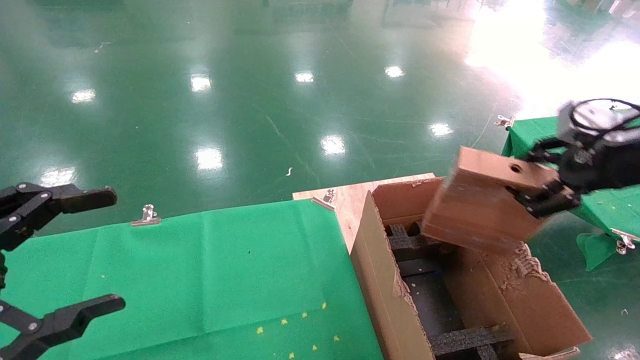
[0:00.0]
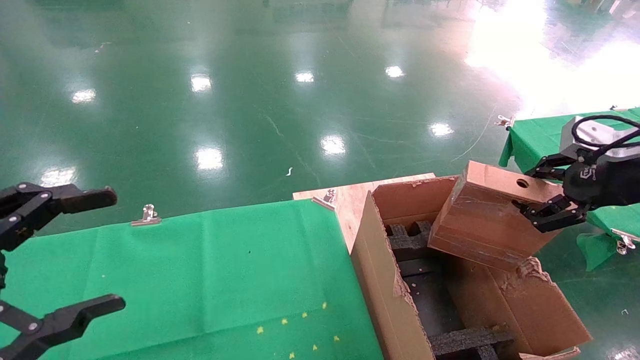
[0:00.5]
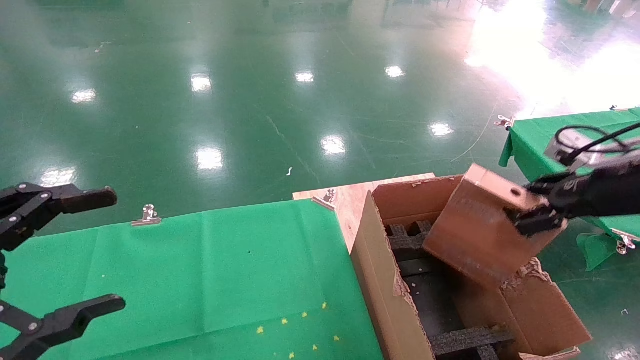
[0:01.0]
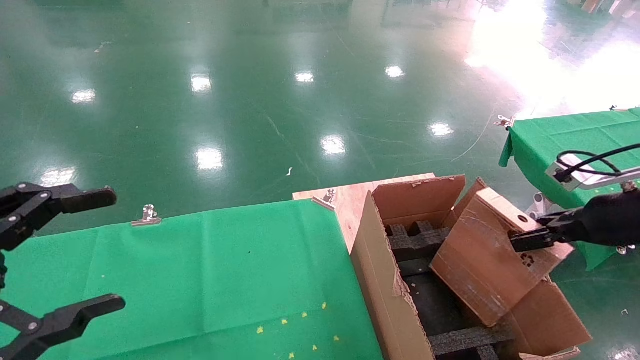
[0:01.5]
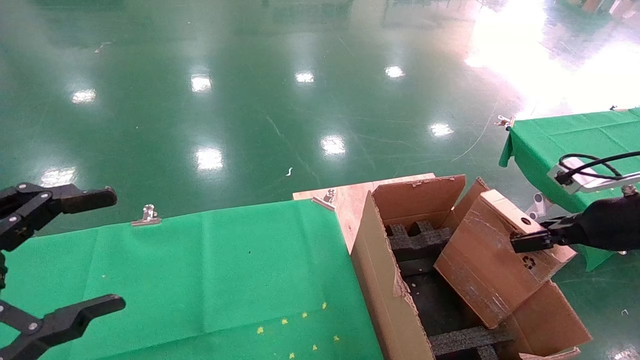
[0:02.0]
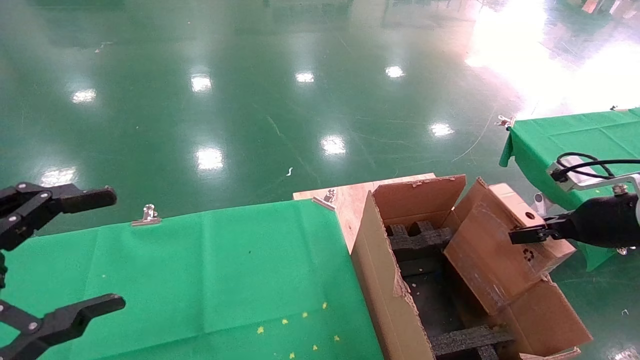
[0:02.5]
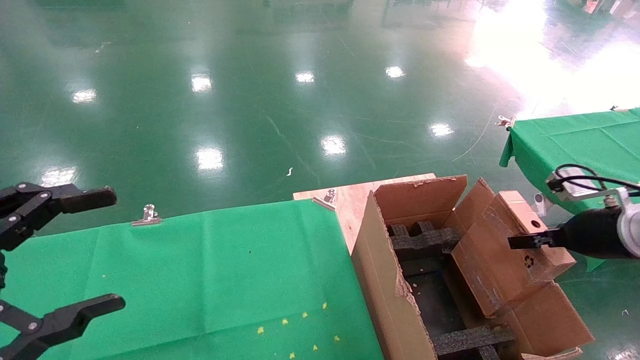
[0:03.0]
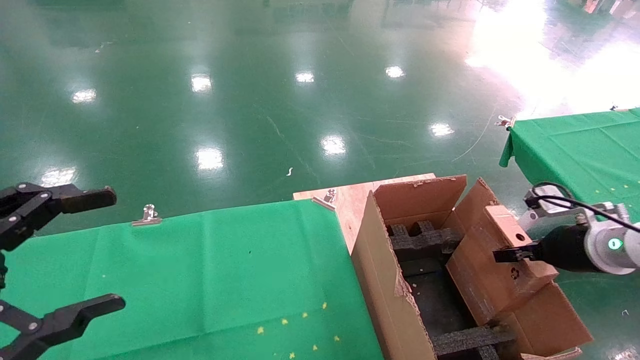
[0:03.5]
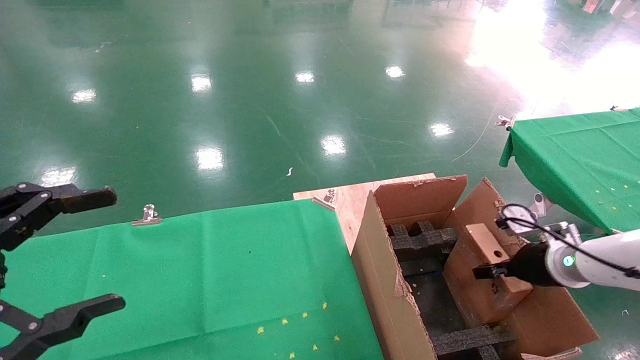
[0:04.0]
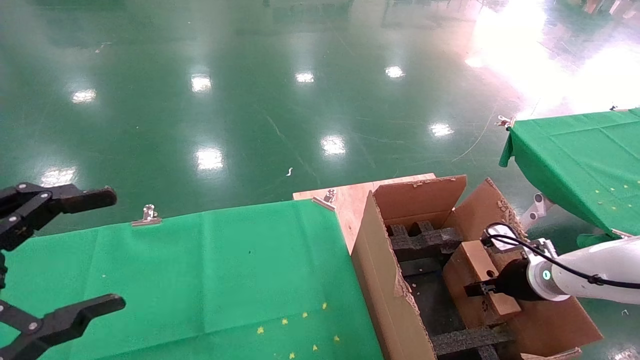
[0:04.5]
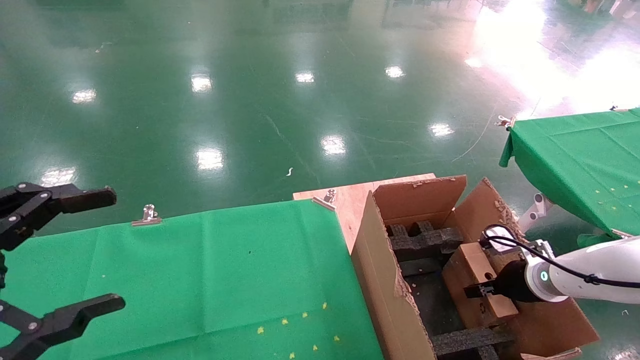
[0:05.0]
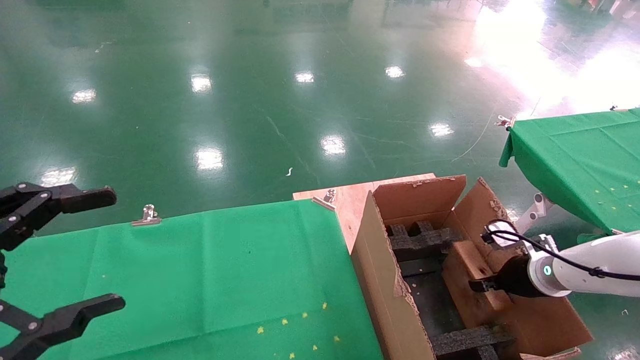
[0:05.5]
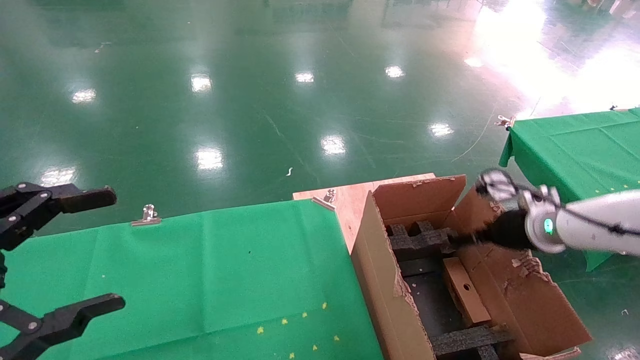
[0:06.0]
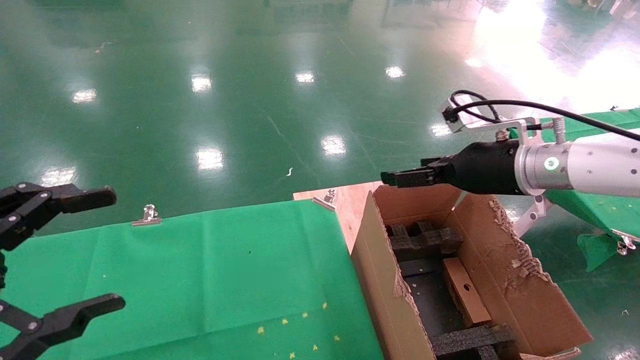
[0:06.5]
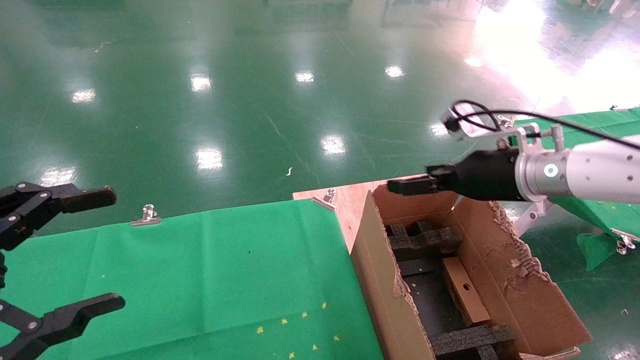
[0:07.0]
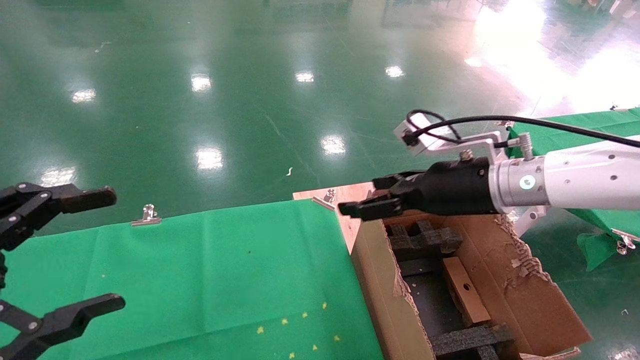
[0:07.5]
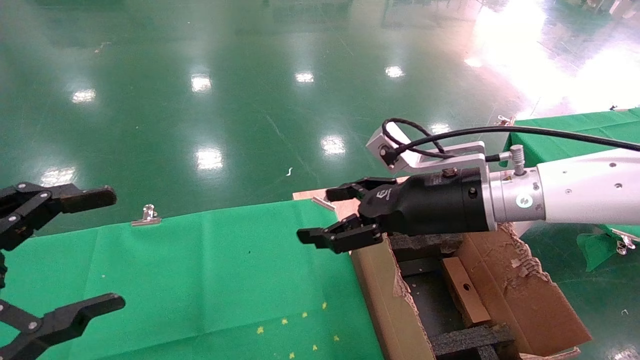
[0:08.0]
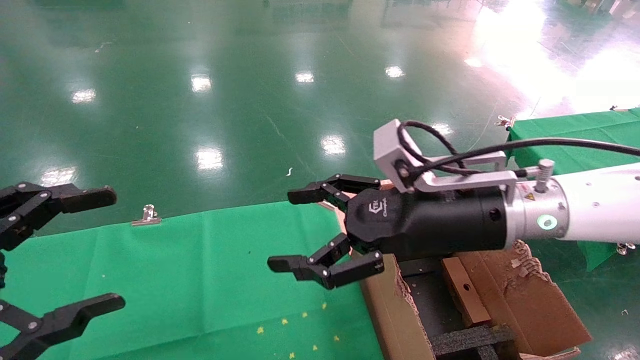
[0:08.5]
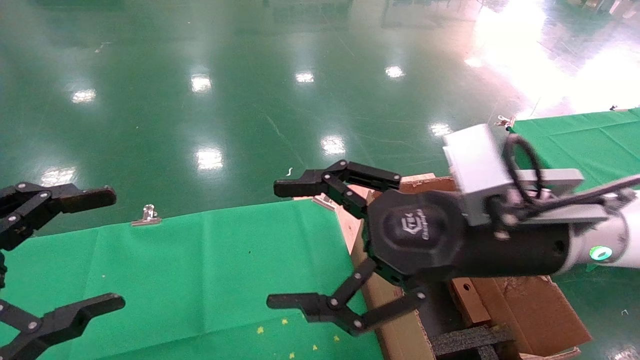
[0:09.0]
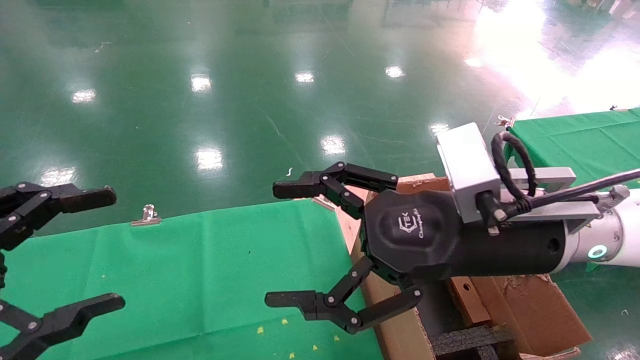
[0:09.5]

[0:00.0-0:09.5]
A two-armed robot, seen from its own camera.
Task of the whole recording: using a robotic arm to pick up a cardboard box and palace it the carton.
Step, 0:00.0 to 0:06.0: Place the mouse and the power cord paper box into the container.
0:00.0 to 0:02.0: The right gripper is displaced downward by roughly 10 cm.
0:02.0 to 0:04.0: The right gripper travels downward and forward by approximately 15 cm.
0:04.0 to 0:05.5: The grippers move only a little.
0:05.5 to 0:07.5: The right gripper shifts about 25 cm upward and to the left, and opens up.
0:07.5 to 0:09.5: The right gripper shifts about 10 cm backward and to the left.
